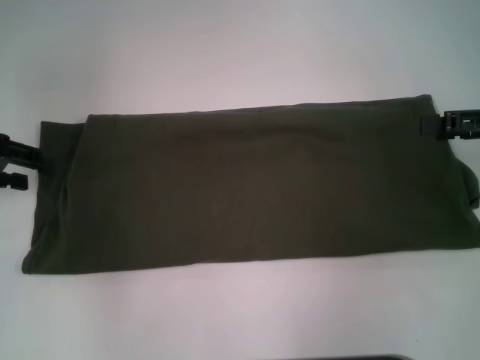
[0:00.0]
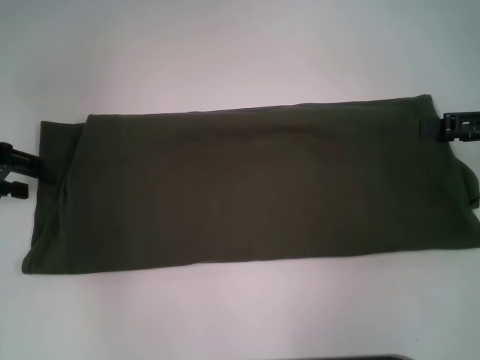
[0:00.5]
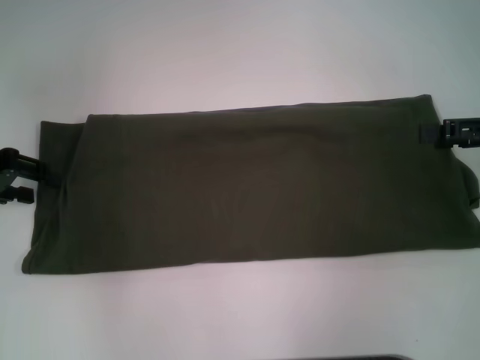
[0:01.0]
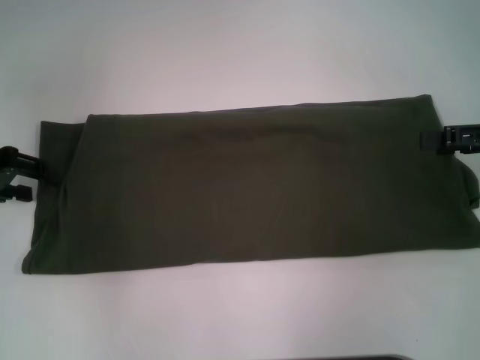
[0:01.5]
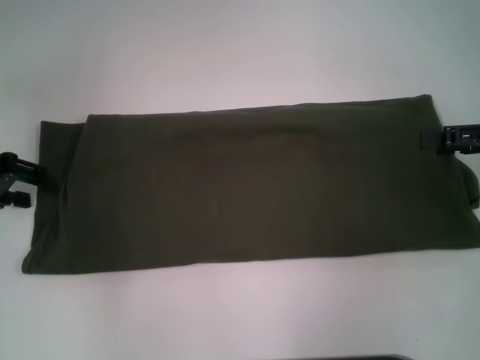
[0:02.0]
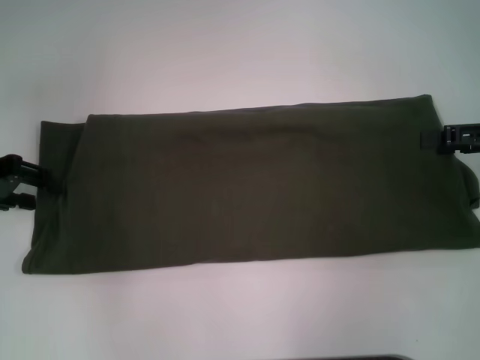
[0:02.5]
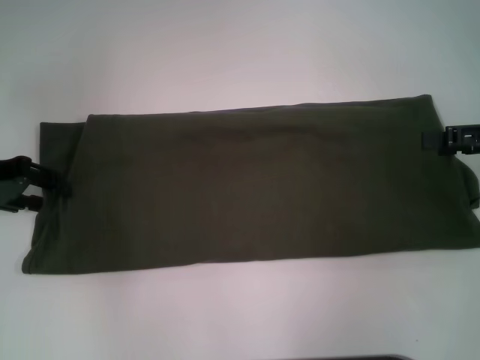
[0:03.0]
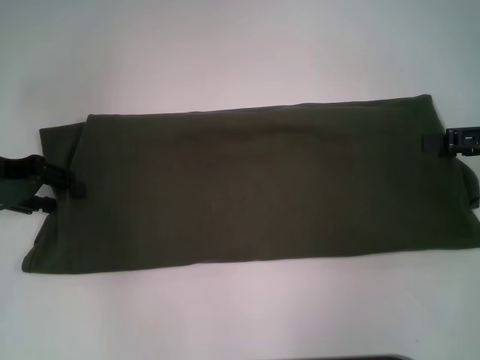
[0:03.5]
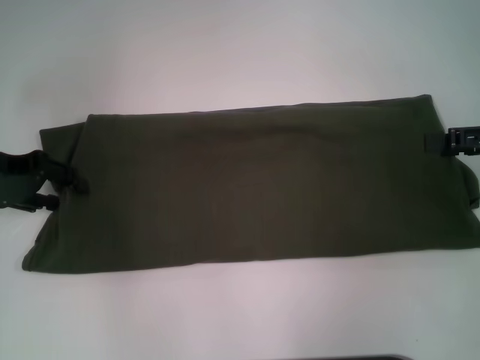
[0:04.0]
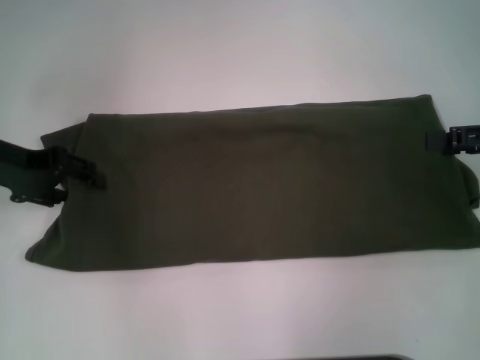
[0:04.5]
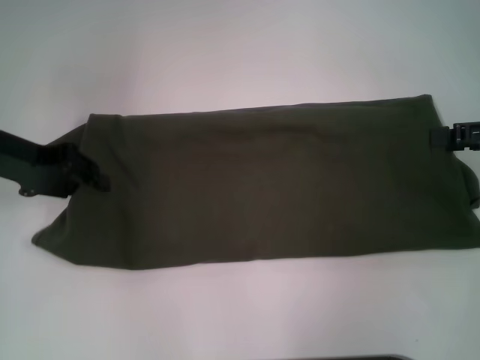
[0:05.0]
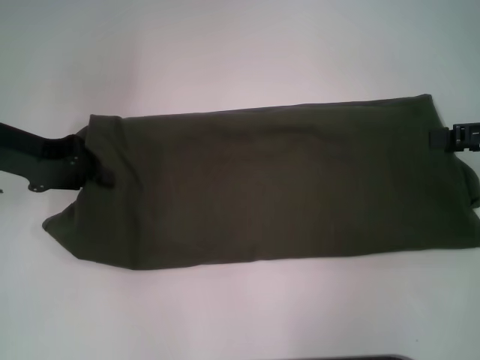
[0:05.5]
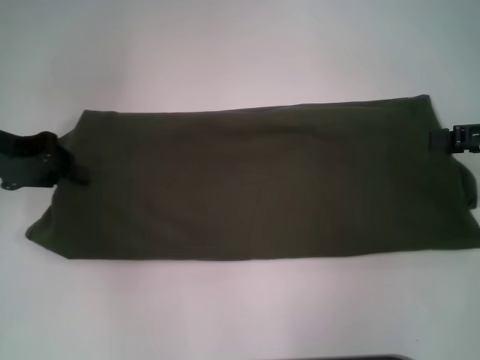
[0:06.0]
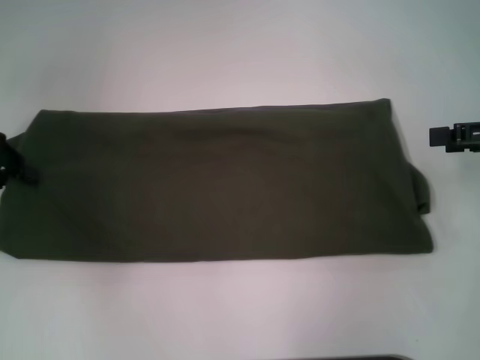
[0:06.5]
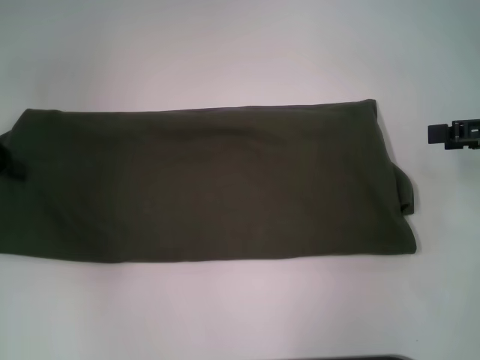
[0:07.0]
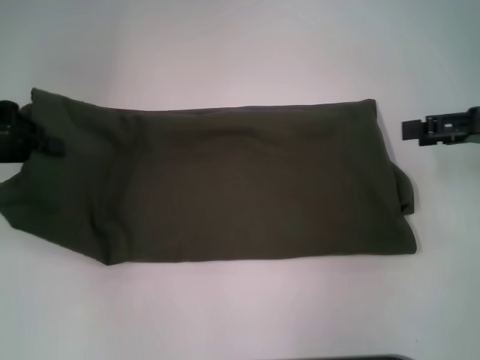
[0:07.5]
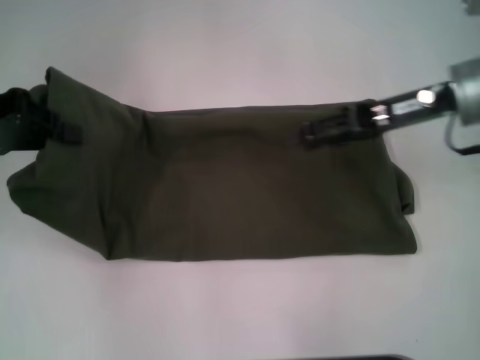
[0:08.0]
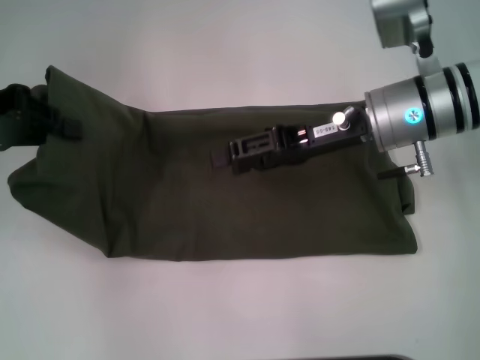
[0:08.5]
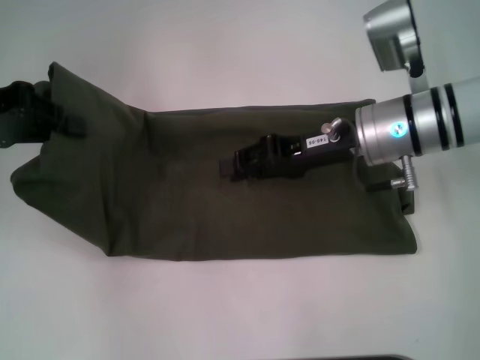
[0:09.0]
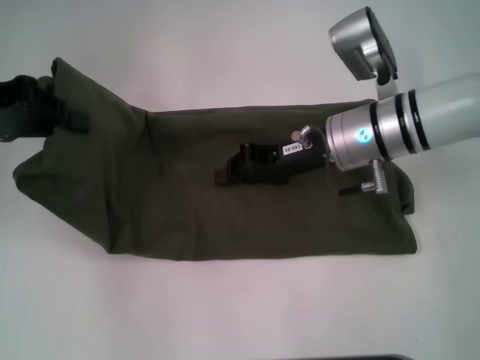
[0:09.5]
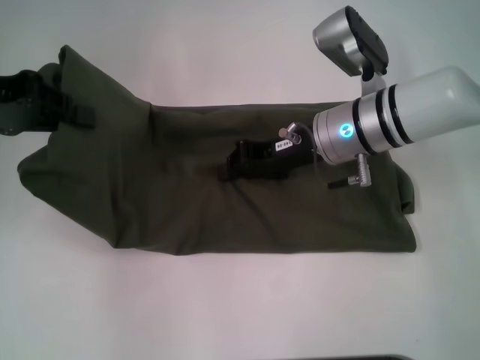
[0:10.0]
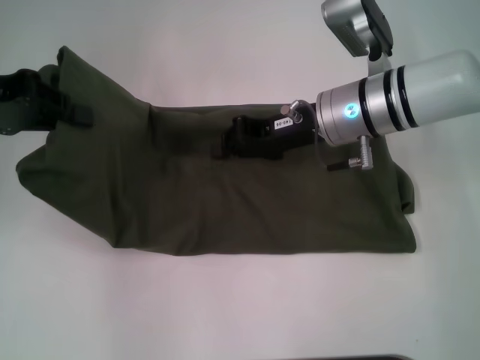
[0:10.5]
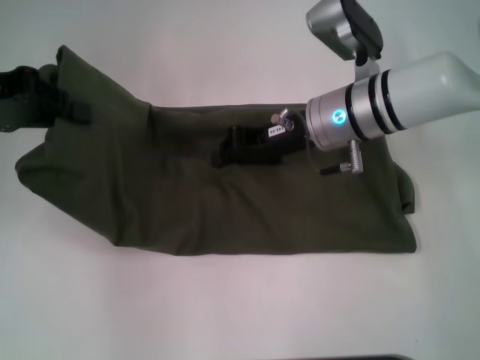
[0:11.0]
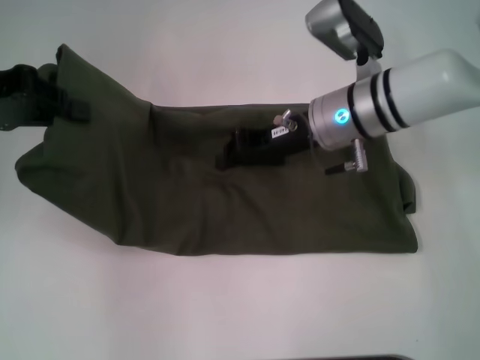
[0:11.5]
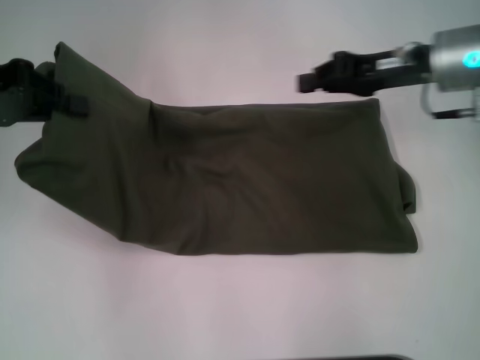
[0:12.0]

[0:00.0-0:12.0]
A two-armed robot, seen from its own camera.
0:00.0 to 0:04.0: The grippers stay close to where they were, moving slightly.
0:04.0 to 0:06.0: The left gripper closes its fingers.
0:06.0 to 0:08.0: The right gripper goes some 15 cm to the left and forward.
0:08.0 to 0:10.0: The right gripper shifts about 10 cm to the left and downward, and closes.
0:10.0 to 0:12.0: The right gripper moves to the right and upward, some 10 cm.

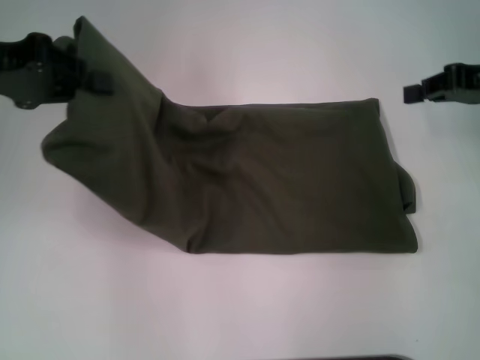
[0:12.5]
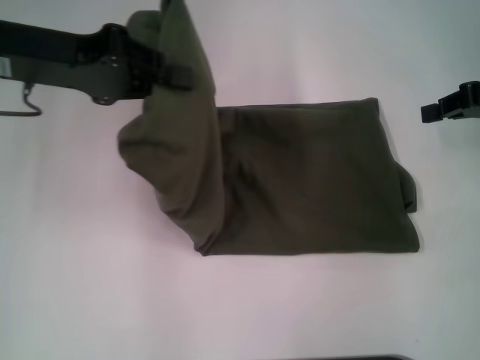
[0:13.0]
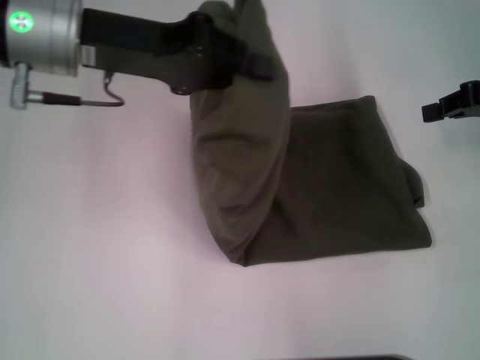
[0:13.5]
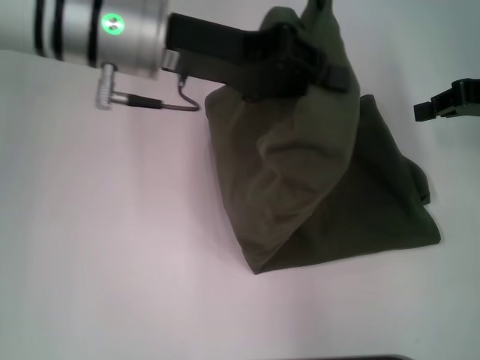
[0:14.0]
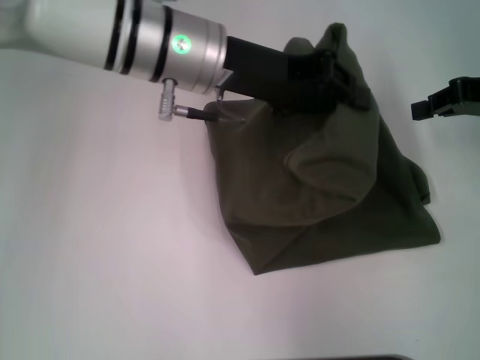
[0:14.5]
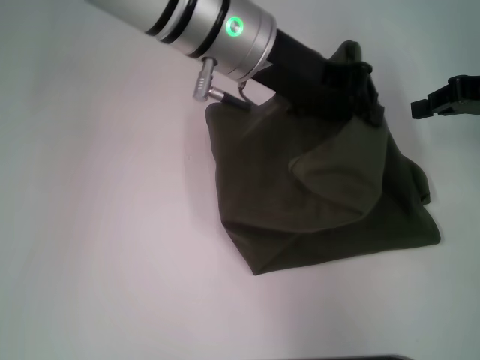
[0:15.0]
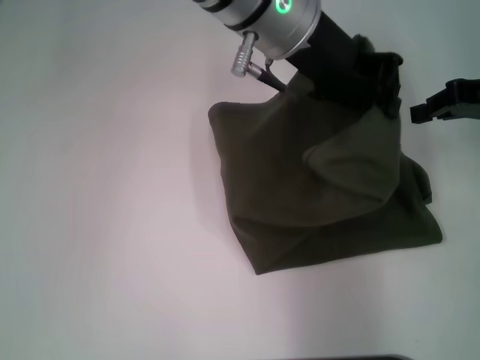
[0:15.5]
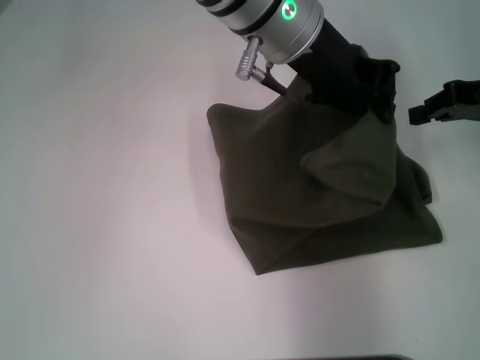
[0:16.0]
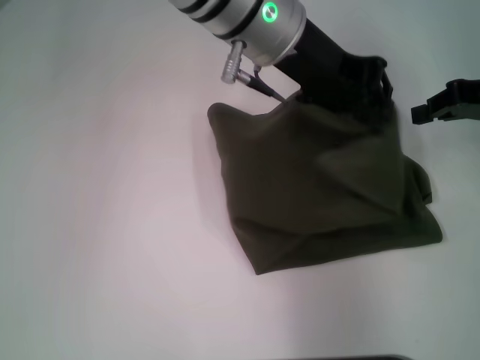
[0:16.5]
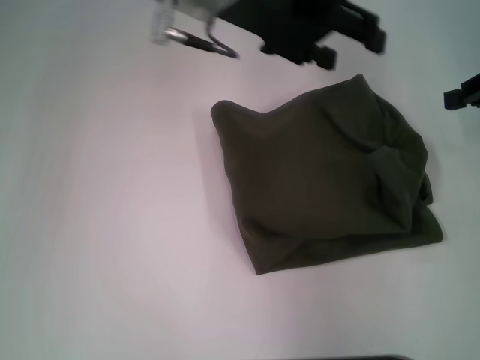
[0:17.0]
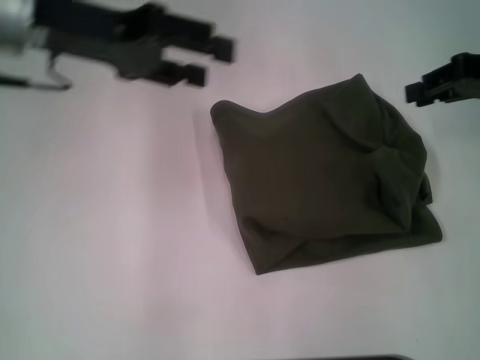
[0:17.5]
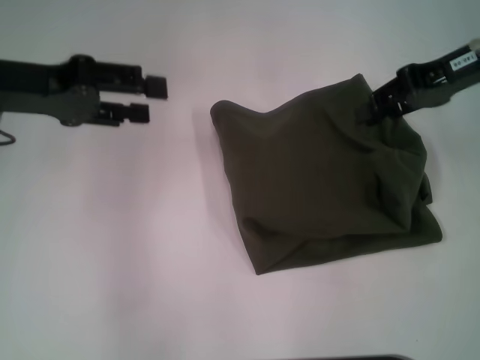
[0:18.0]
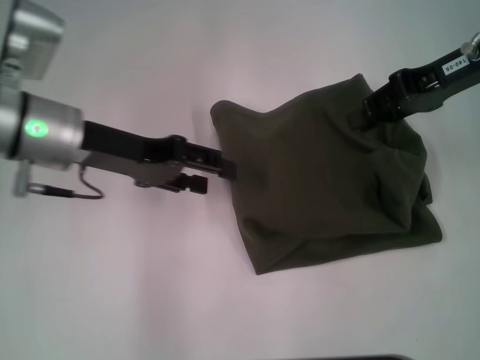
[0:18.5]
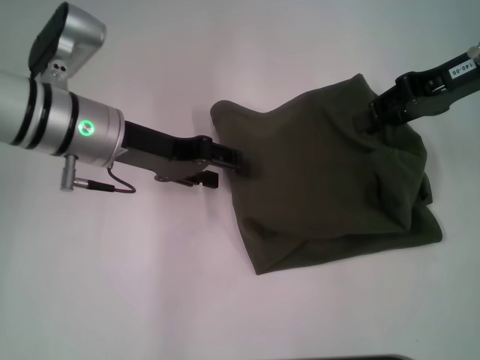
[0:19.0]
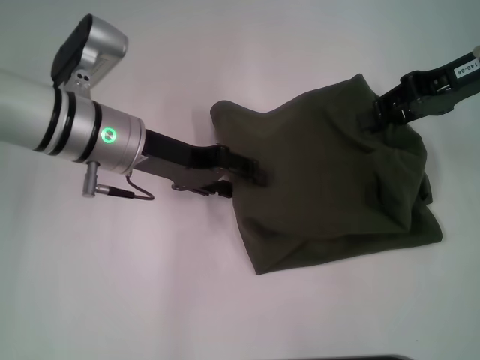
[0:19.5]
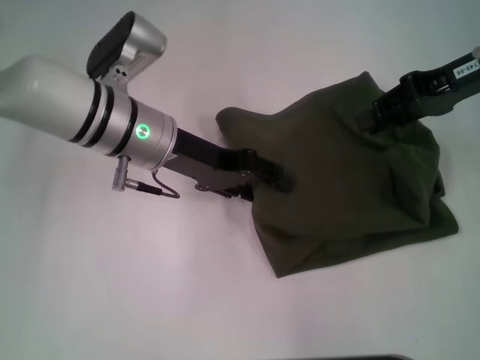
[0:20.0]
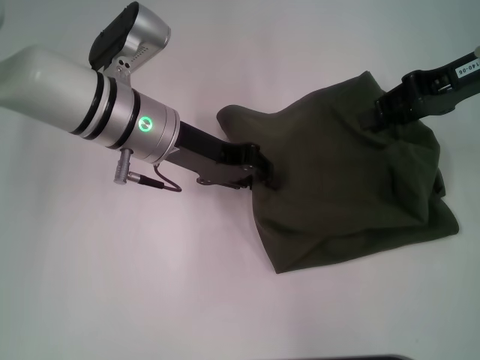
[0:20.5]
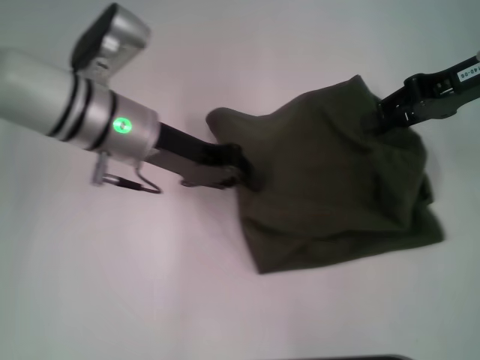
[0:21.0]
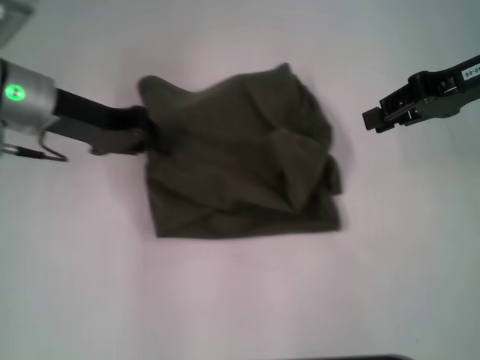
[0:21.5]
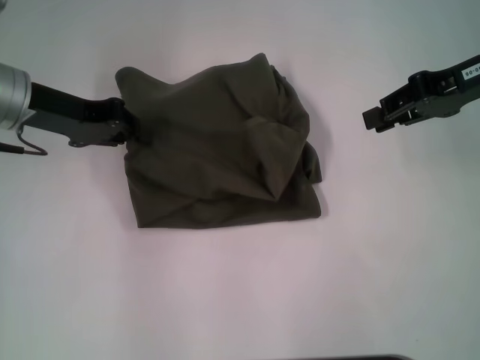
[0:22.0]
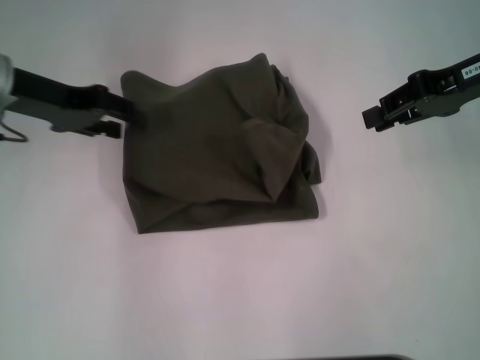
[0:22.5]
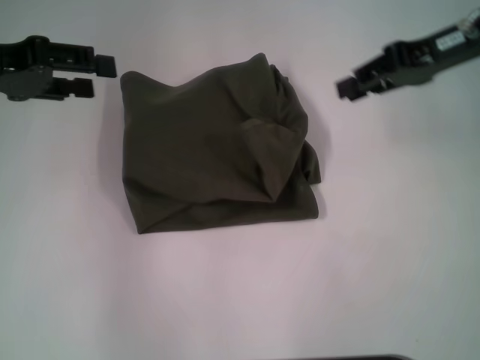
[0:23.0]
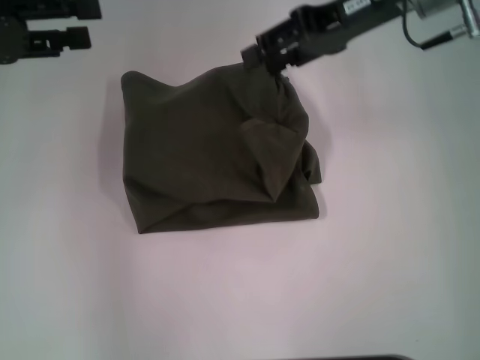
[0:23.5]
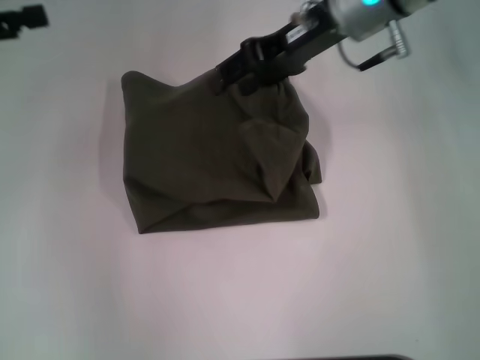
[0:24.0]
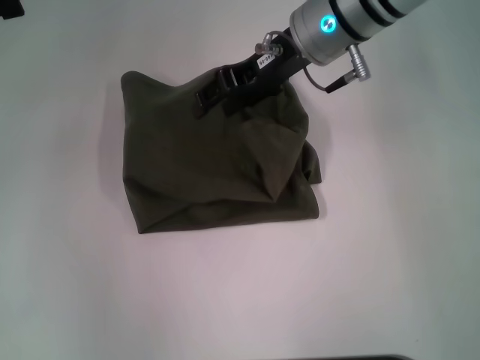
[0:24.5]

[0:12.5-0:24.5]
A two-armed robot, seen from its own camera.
0:12.5 to 0:14.5: The left gripper goes approximately 20 cm to the right.
0:14.5 to 0:16.5: The left gripper moves to the right, some 5 cm.
0:16.5 to 0:18.5: The right gripper moves to the left, about 5 cm. The left gripper shifts roughly 20 cm to the left and downward, and opens up.
0:18.5 to 0:20.5: The left gripper moves to the right, approximately 10 cm.
0:20.5 to 0:22.5: The left gripper shifts roughly 15 cm to the left, and closes, then reopens.
0:22.5 to 0:24.5: The right gripper heads to the left, covering some 20 cm. The left gripper is displaced to the left, upward and backward by some 15 cm.

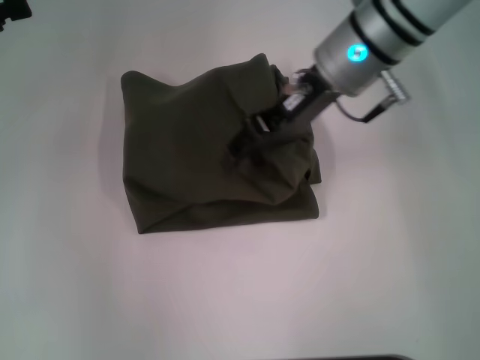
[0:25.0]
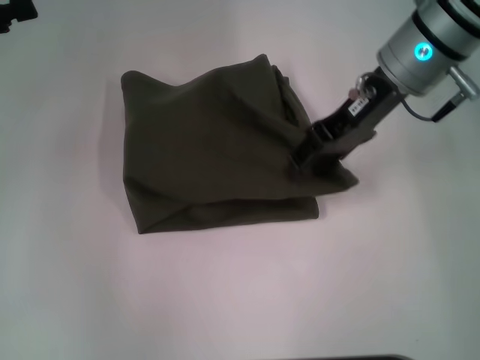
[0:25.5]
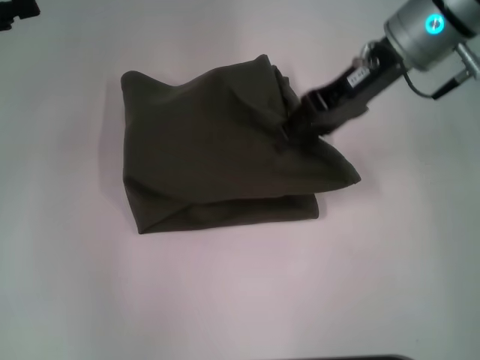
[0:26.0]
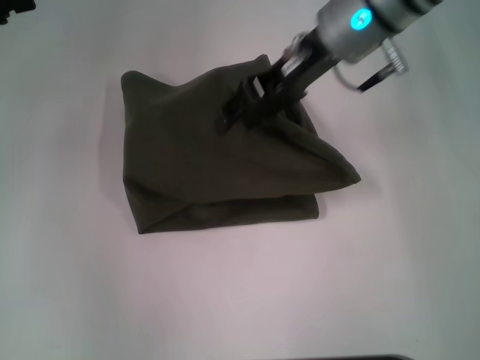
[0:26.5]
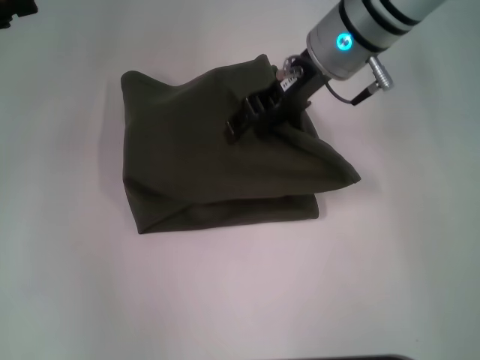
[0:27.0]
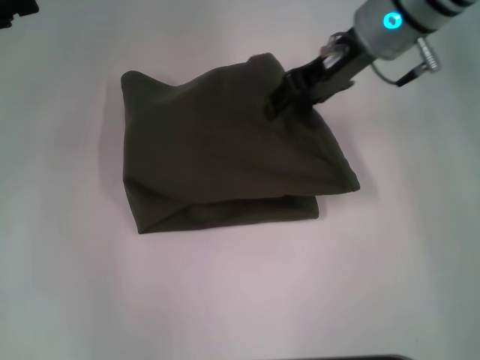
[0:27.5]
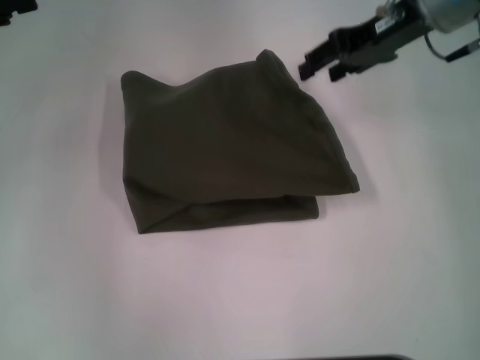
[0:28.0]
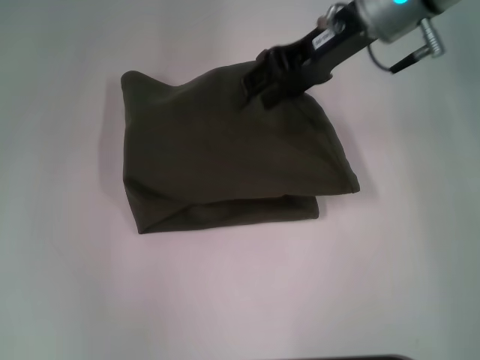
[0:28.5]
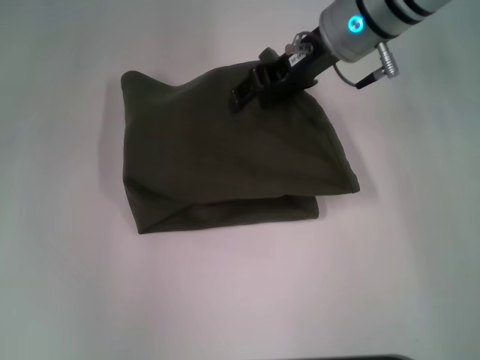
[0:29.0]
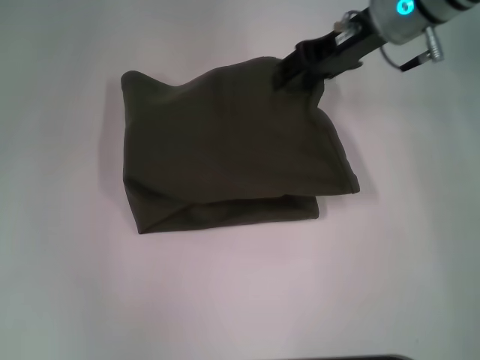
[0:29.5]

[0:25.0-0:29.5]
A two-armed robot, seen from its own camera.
0:25.0 to 0:27.0: The grippers stay close to where they were, moving slightly.
0:27.0 to 0:29.5: The right gripper moves left and right over about 10 cm, changing direction 2 times.
